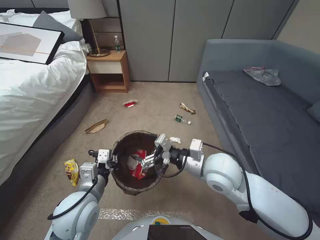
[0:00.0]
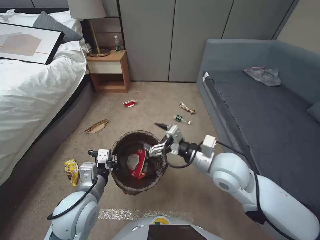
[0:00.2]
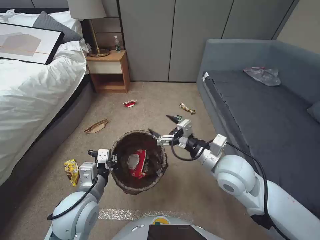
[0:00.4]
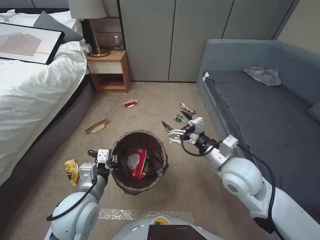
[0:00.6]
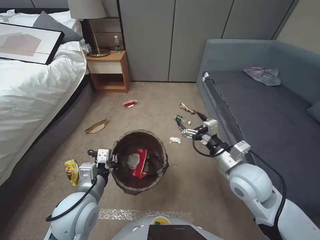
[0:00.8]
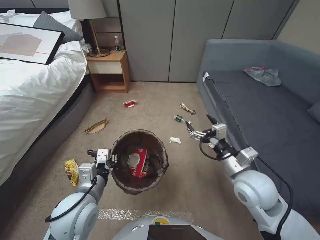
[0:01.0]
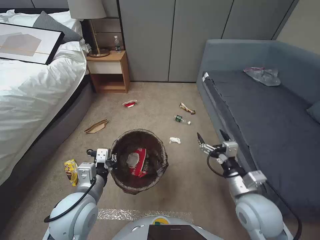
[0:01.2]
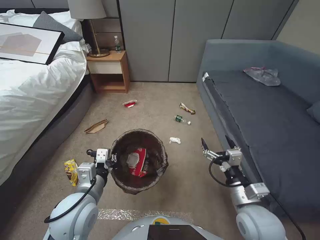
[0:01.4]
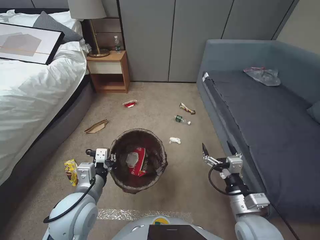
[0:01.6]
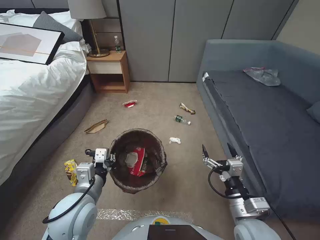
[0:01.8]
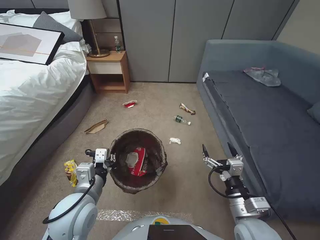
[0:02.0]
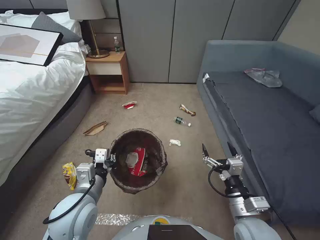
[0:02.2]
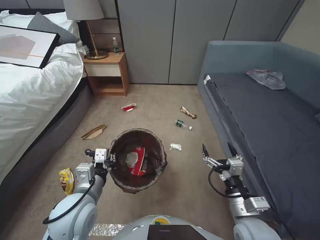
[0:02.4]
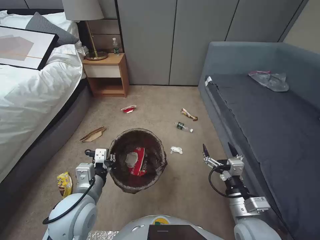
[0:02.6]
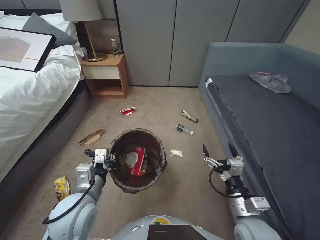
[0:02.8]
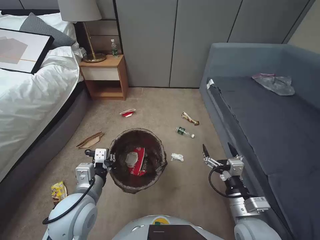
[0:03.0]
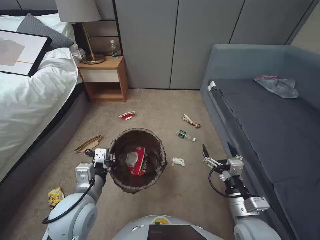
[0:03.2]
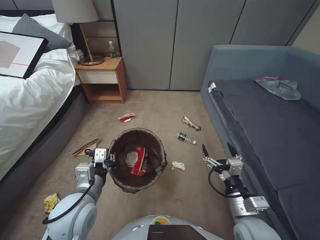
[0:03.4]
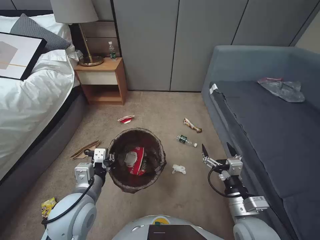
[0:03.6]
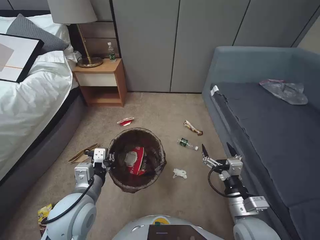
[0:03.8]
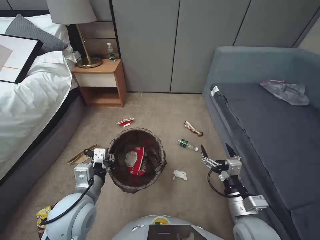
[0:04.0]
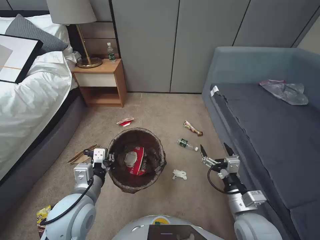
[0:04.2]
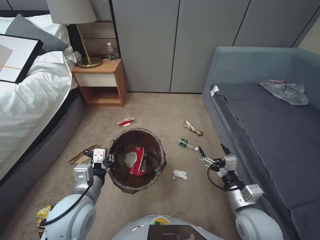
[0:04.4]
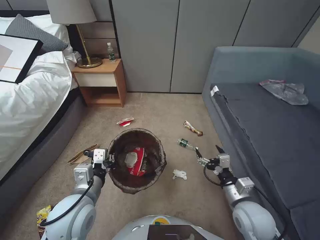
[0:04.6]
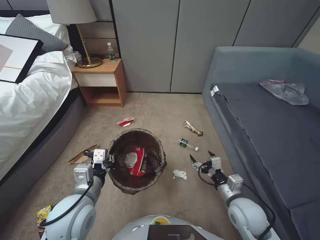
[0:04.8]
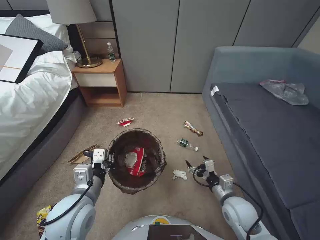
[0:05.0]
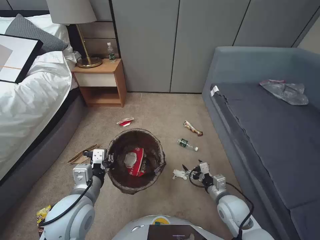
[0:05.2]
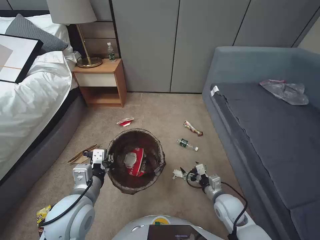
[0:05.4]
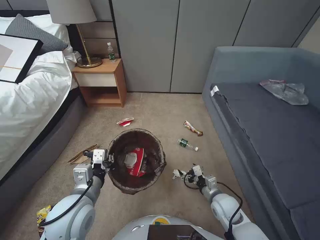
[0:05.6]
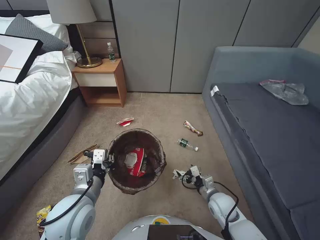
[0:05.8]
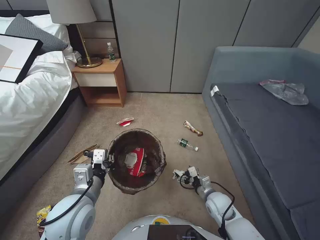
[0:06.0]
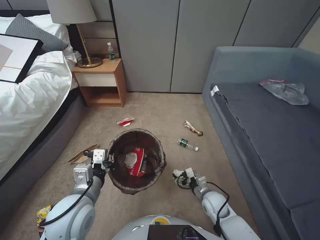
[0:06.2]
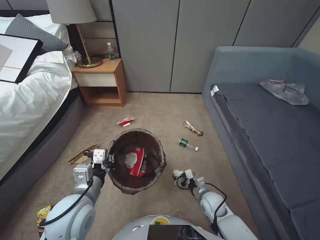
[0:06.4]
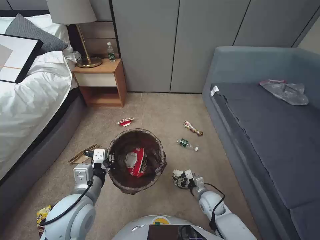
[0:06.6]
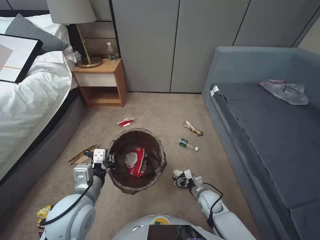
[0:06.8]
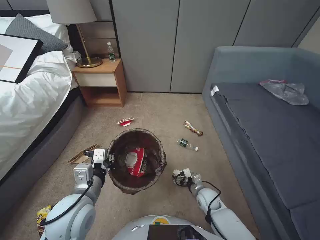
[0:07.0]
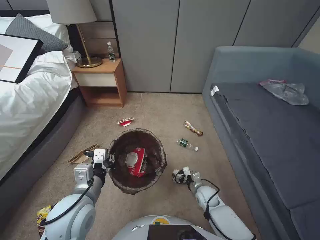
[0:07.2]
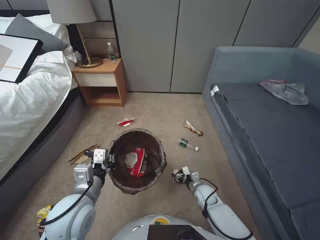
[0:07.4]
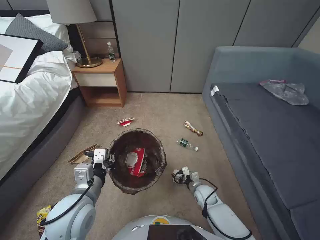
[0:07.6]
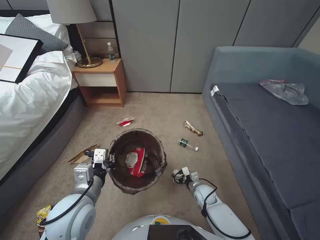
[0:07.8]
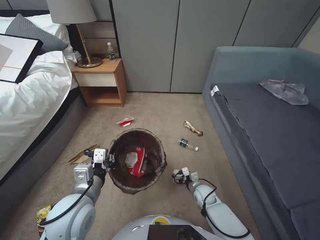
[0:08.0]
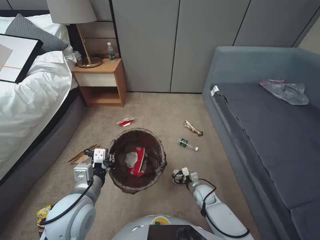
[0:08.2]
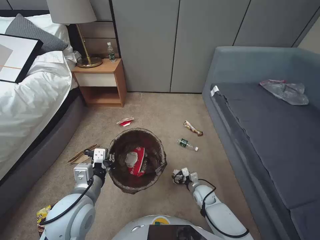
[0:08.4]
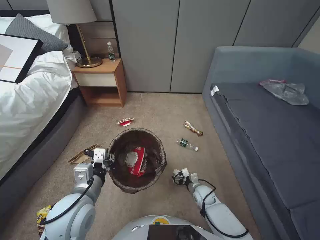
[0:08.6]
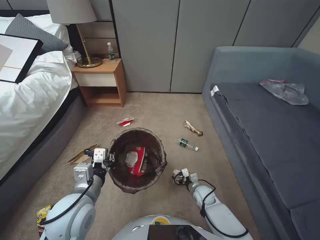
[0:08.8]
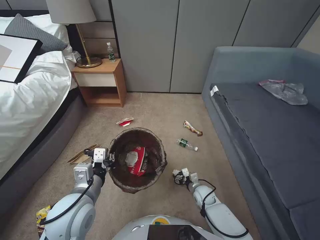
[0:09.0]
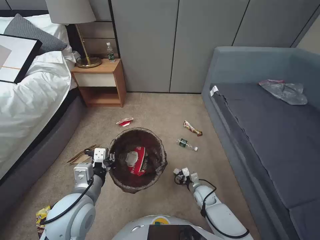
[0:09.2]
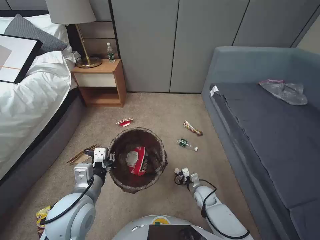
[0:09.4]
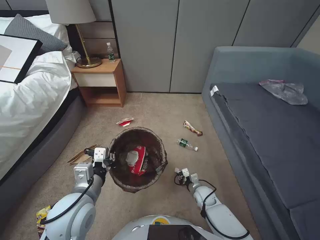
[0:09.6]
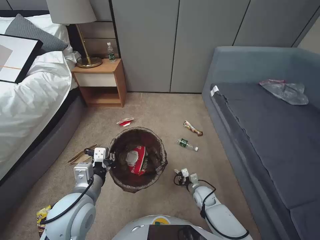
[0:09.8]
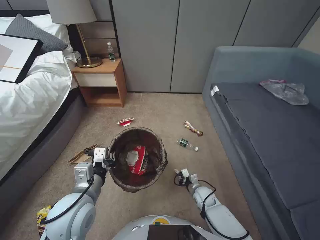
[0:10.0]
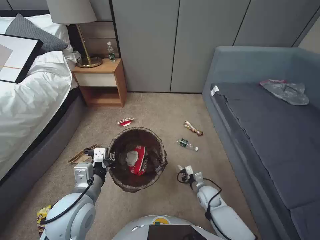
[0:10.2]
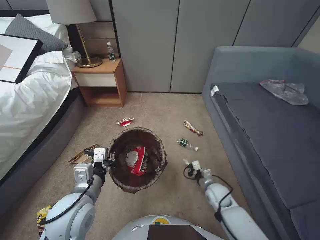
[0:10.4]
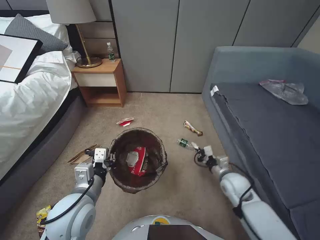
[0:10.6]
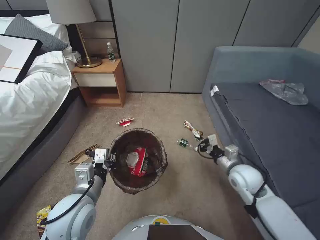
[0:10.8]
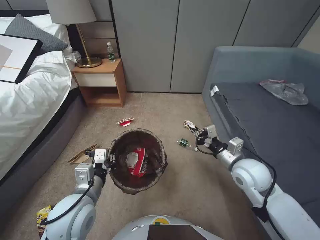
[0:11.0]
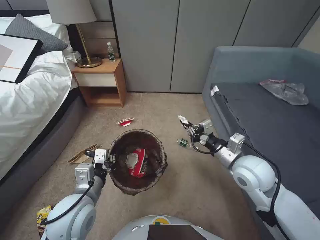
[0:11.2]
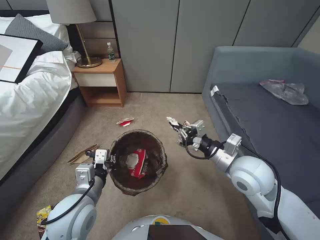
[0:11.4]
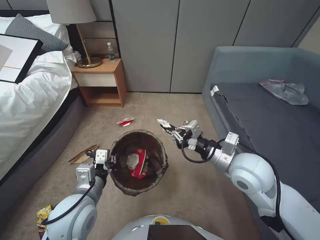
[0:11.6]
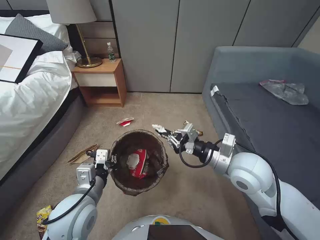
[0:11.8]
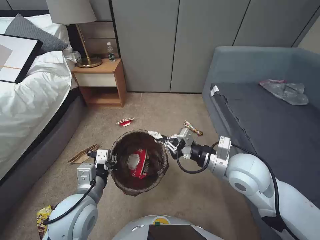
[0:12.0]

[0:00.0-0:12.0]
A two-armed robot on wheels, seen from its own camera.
Task of the whole recording: Pick up the trash bin, then pick up the garbage from the floor and place it into the trash bin.
0:00.0 to 0:01.6: The right gripper is displaced backward, to the right and downward by some 20 cm.
0:01.6 to 0:04.4: The grippers make only small movements.
0:04.4 to 0:06.0: The right gripper heads downward and forward, covering roughly 15 cm.
0:06.0 to 0:07.6: The right gripper travels downward and forward by some 10 cm.
0:07.6 to 0:09.0: The grippers make only small movements.
0:09.0 to 0:10.4: The right gripper shifts by approximately 5 cm, and closes.
0:10.4 to 0:12.0: The right gripper travels upward by some 35 cm.

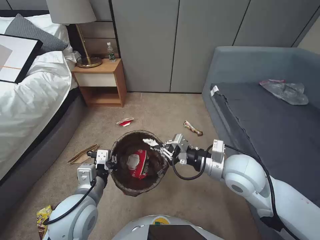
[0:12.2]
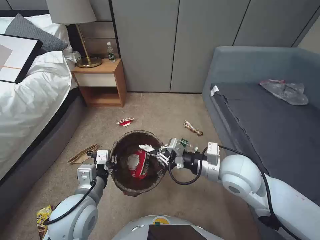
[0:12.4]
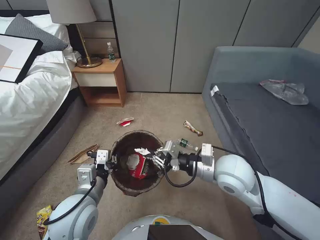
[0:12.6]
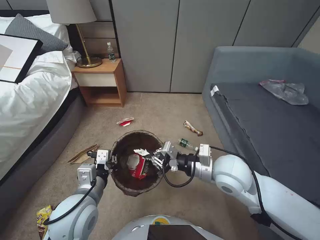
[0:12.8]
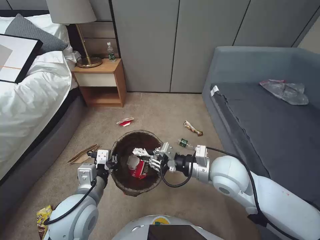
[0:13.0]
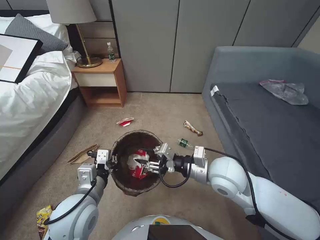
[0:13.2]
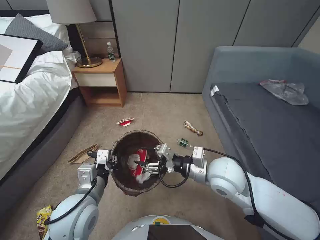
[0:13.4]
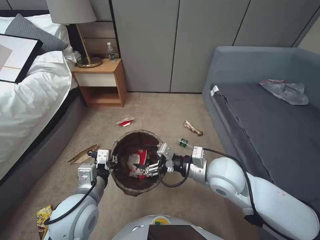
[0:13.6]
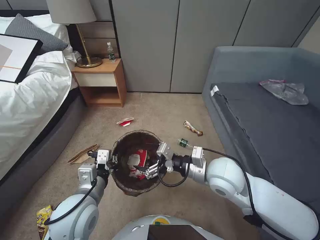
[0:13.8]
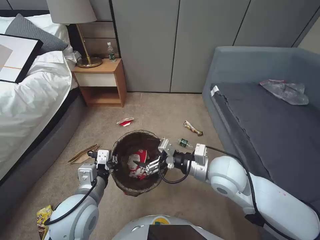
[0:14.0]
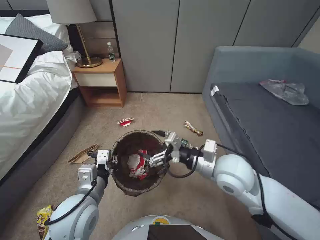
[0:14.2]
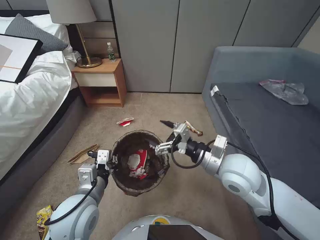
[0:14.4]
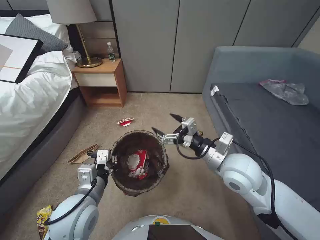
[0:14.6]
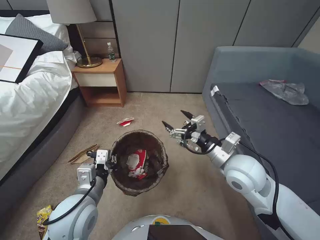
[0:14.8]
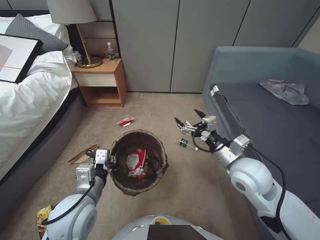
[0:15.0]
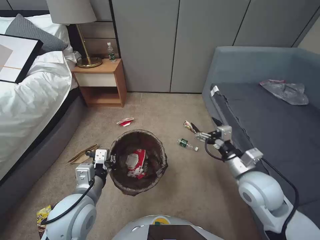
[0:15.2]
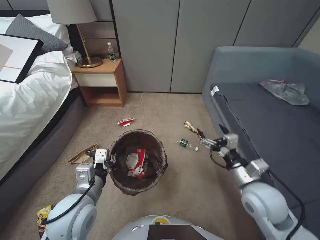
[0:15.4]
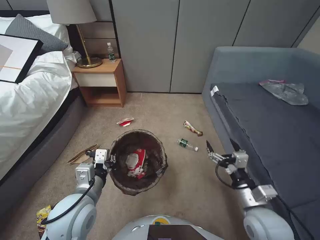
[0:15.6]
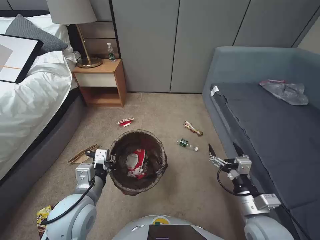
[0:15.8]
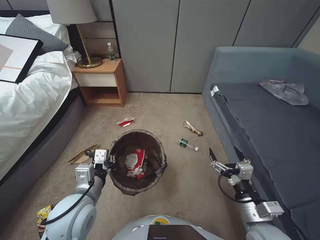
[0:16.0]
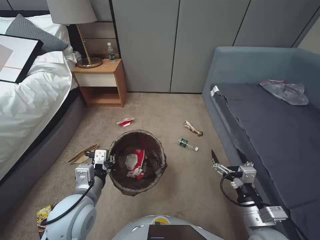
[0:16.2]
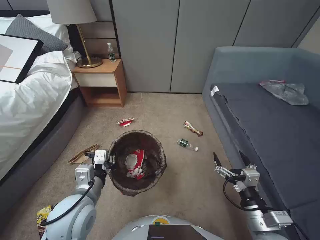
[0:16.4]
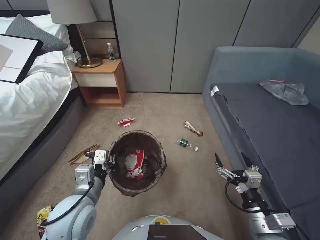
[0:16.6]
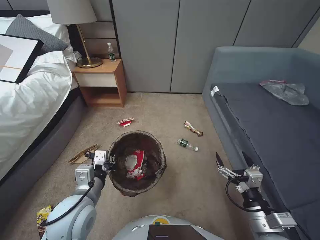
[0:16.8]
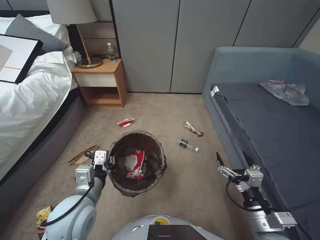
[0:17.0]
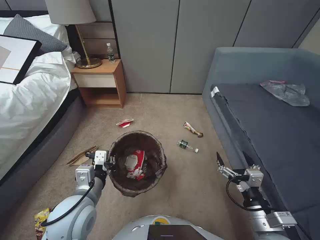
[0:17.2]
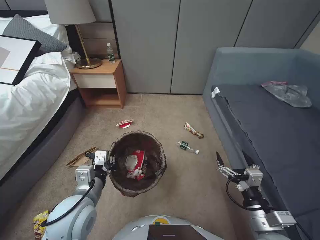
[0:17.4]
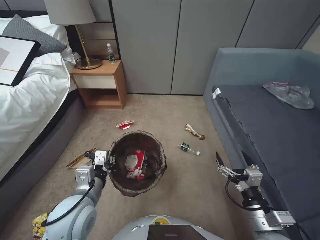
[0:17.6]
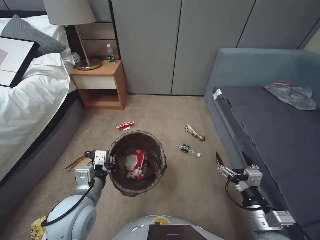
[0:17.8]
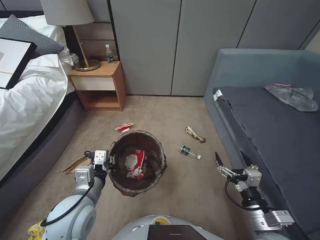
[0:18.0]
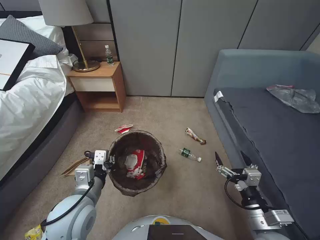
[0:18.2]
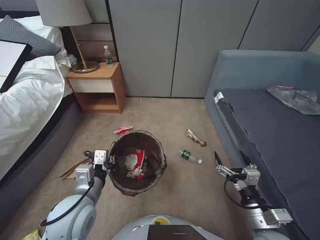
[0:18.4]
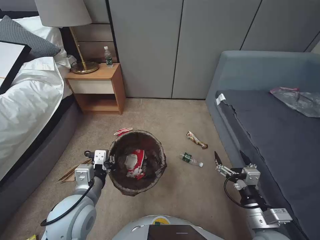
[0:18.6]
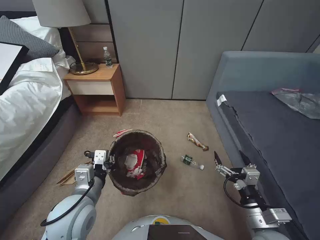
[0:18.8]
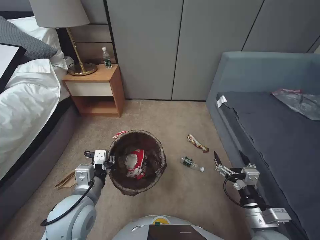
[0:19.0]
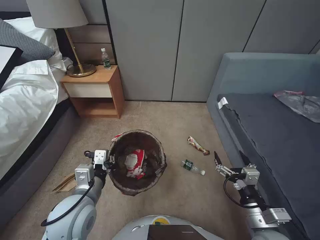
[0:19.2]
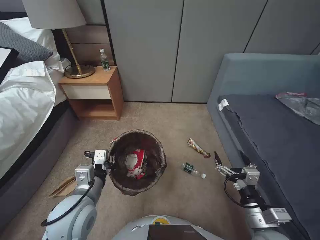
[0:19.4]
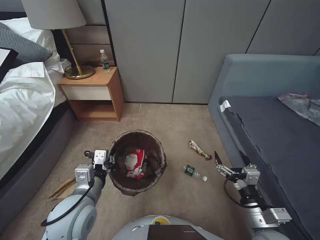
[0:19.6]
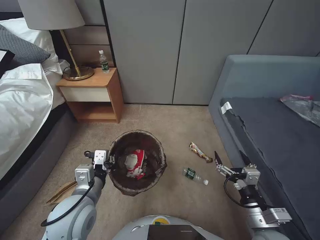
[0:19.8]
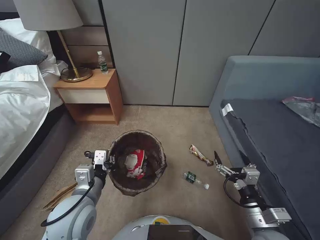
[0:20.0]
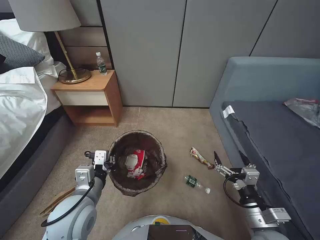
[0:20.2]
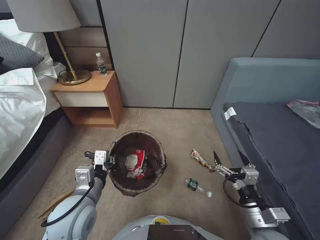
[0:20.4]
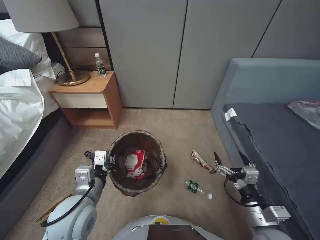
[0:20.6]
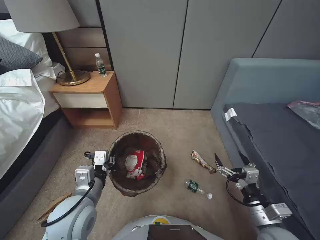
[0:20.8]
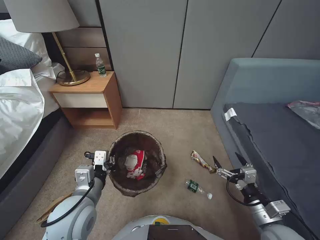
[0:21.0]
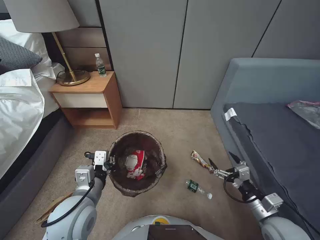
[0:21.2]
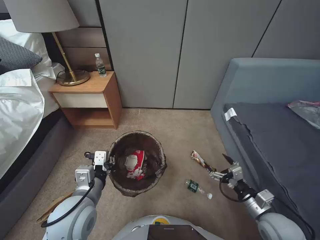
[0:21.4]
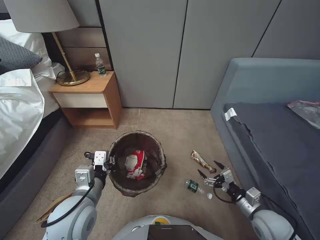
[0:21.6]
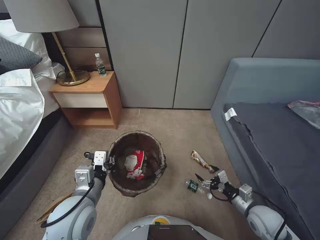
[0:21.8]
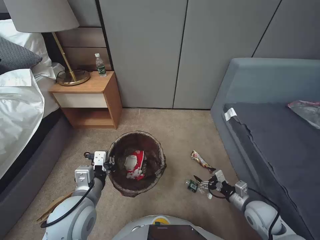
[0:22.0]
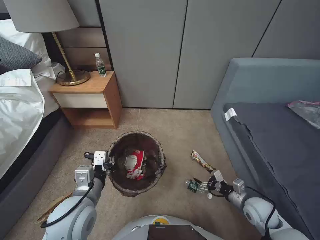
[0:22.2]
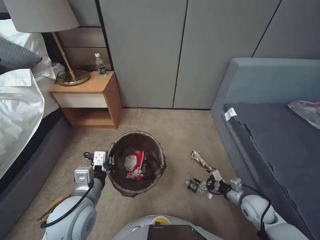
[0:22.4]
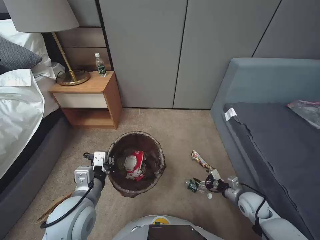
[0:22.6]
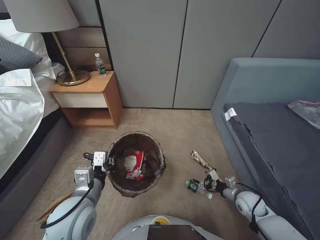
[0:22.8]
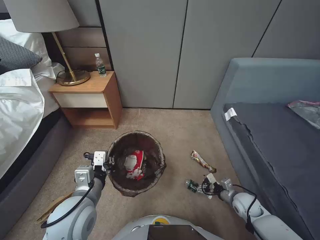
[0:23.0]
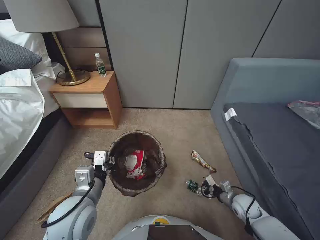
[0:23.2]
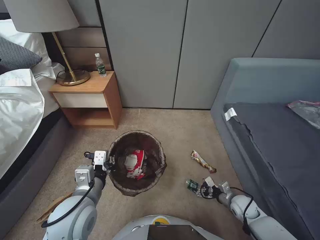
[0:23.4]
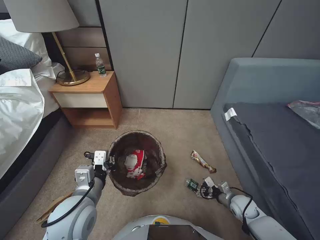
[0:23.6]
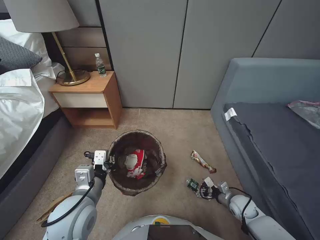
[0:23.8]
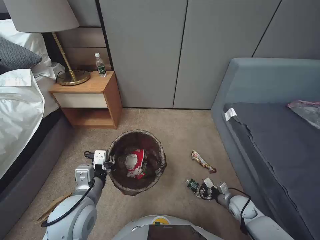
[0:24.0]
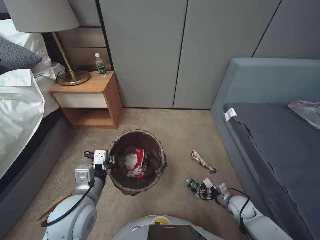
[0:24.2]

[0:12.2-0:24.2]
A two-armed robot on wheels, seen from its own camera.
Task of the whole recording: Pick up the trash bin, then pick up the garbage from the floor and place it into the trash bin.
0:12.2 to 0:13.8: The right gripper opens up.
0:13.8 to 0:15.2: The right gripper goes approximately 10 cm to the right.
0:15.2 to 0:16.6: The right gripper goes roughly 20 cm backward and downward.
0:16.6 to 0:19.8: Both grippers stay about where they are.
0:19.8 to 0:21.2: The right gripper goes some 5 cm to the right.
0:21.2 to 0:22.6: The right gripper shifts about 15 cm downward and forward.
0:22.6 to 0:24.2: The right gripper heads downward, covering about 5 cm.
